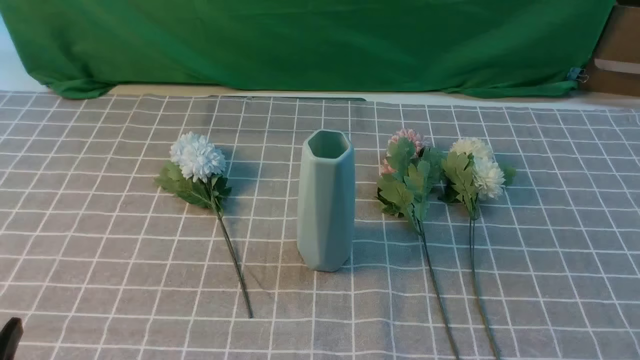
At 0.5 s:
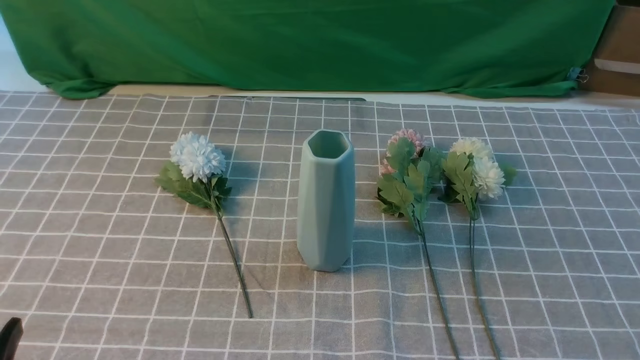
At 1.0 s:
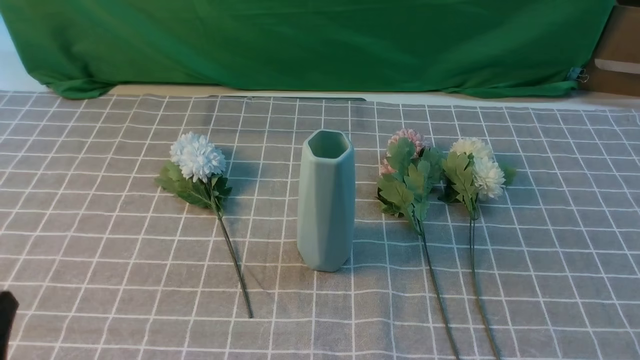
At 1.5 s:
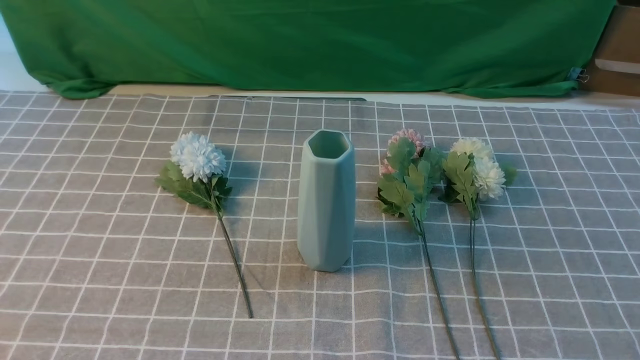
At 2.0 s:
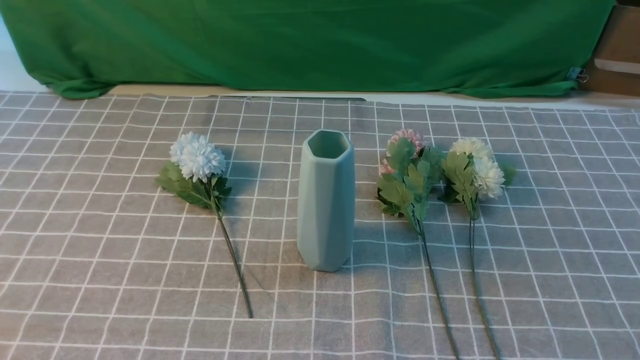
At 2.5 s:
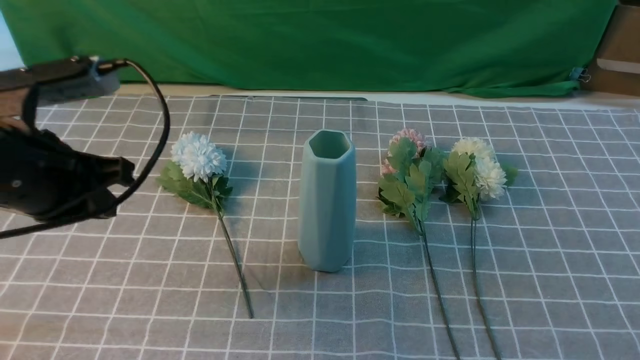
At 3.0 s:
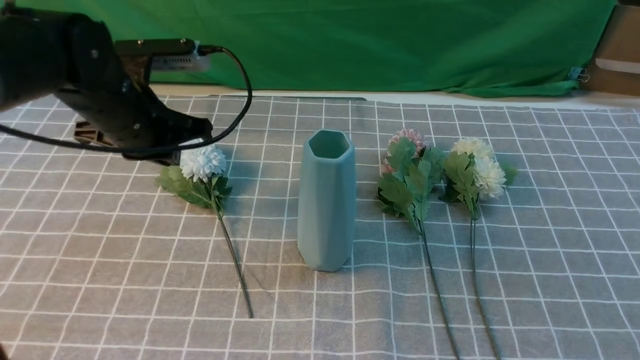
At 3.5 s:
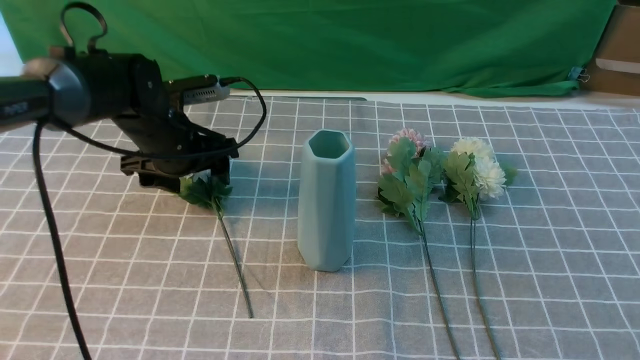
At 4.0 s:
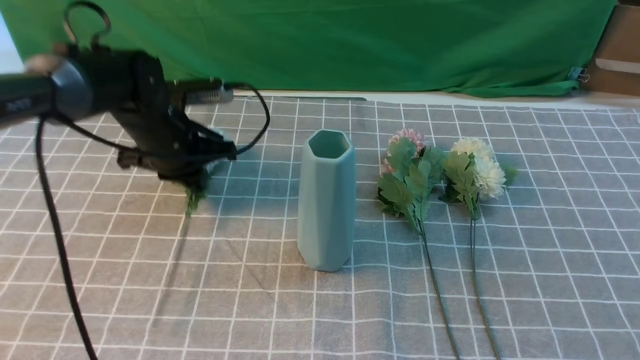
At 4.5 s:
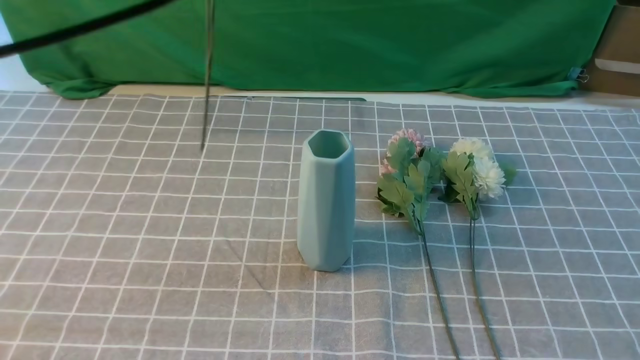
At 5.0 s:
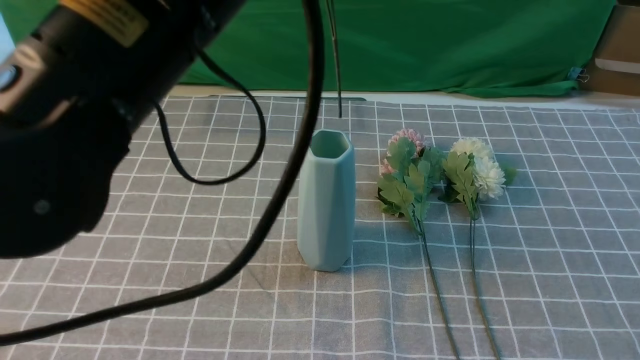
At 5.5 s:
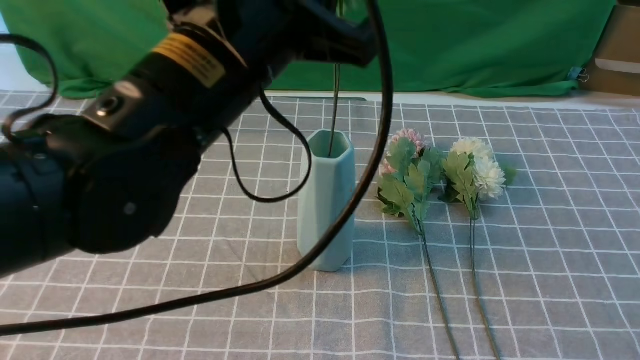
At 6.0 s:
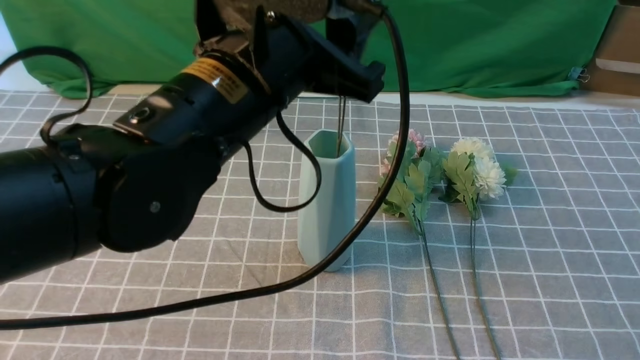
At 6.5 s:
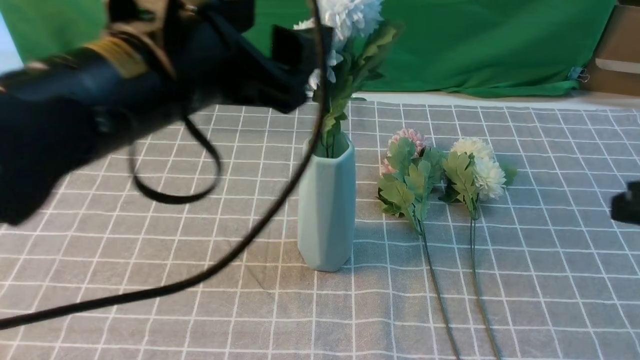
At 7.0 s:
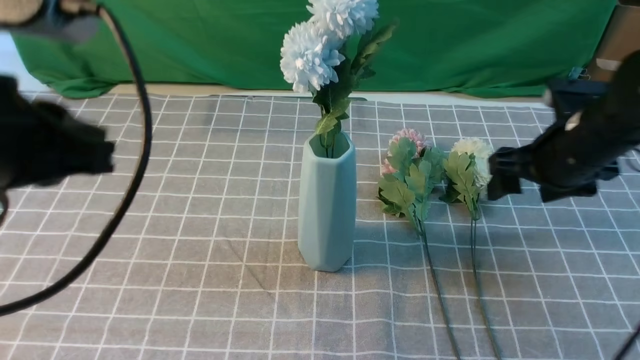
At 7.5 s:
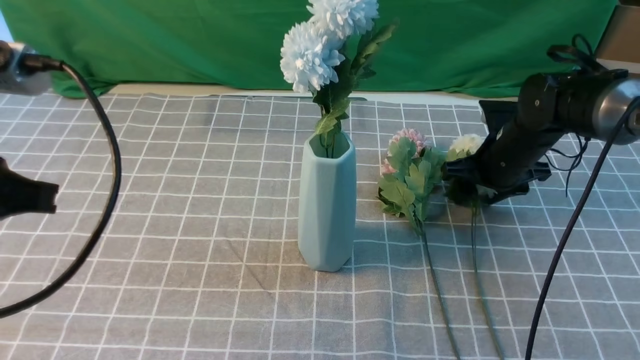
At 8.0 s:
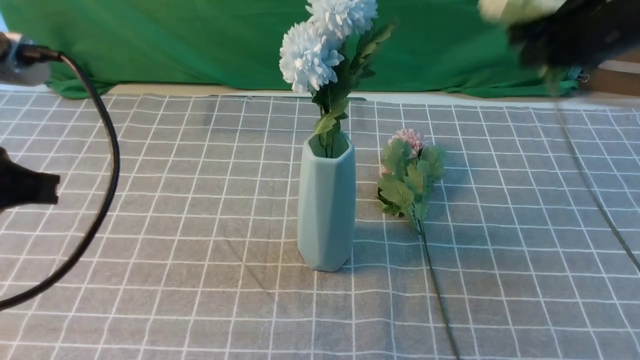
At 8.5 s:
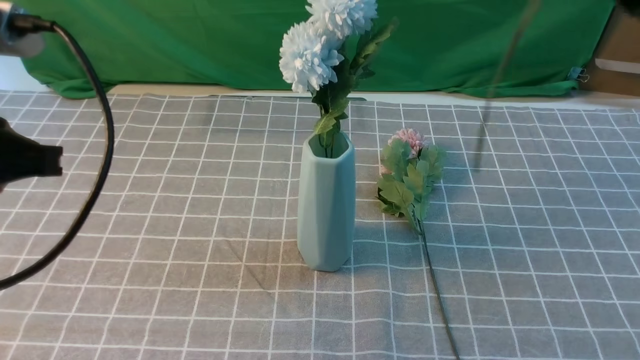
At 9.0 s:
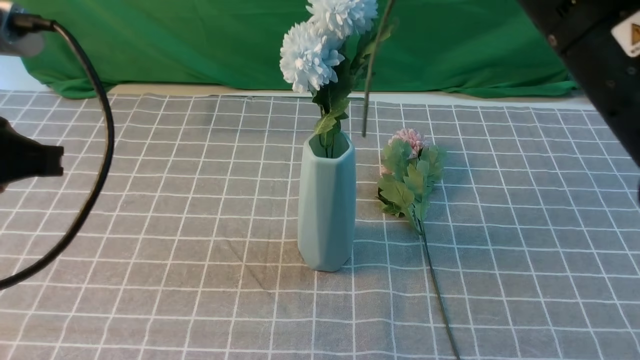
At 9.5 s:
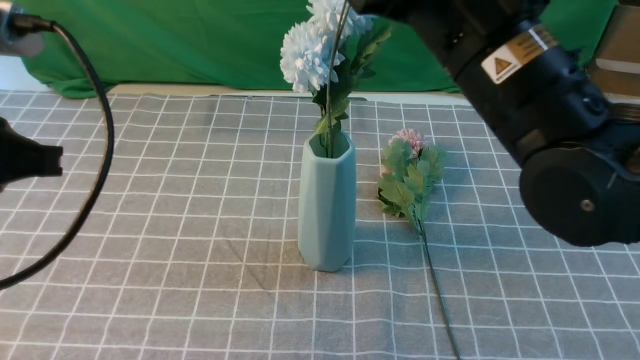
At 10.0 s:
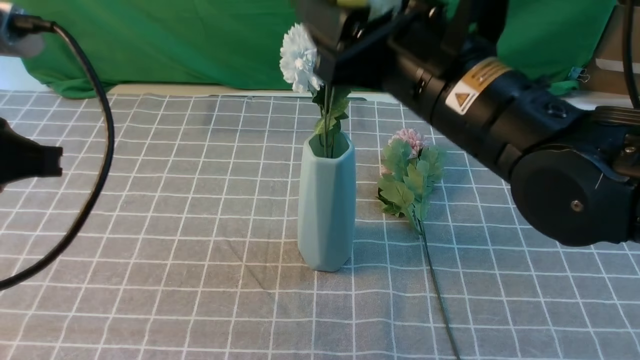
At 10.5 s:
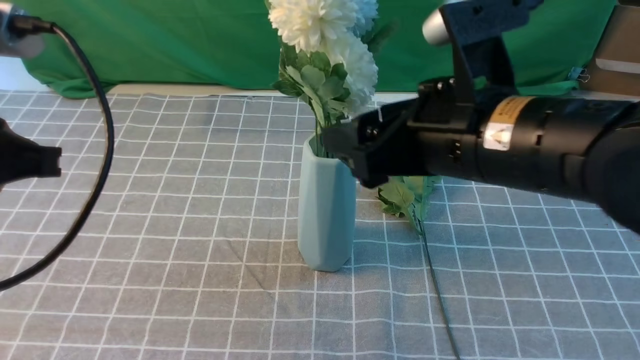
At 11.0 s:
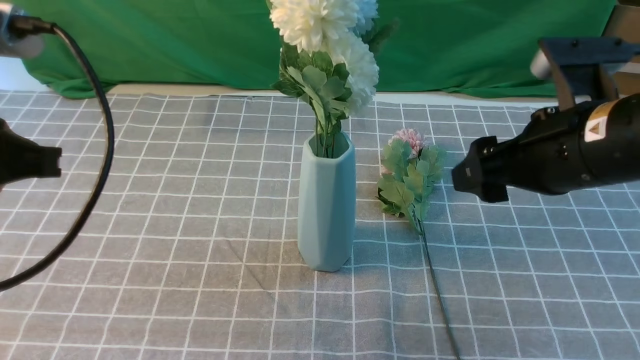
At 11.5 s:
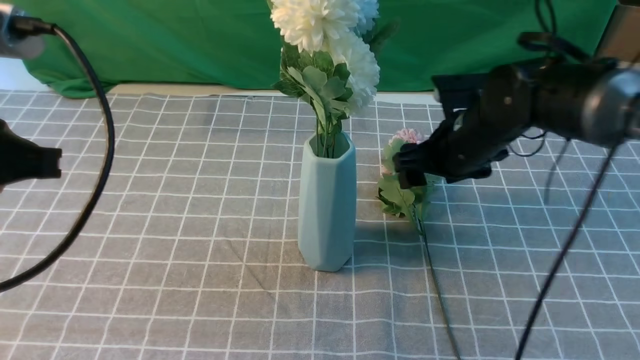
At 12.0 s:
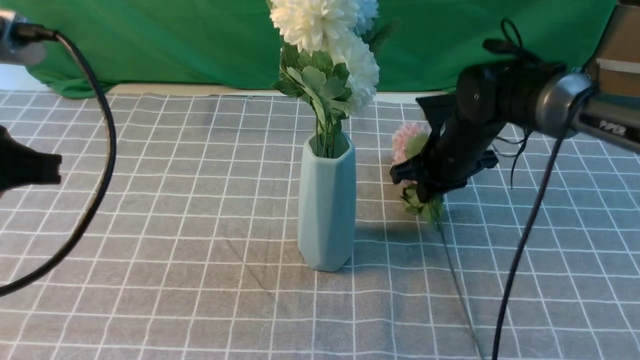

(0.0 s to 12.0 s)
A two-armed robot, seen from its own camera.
Task of the whole recording: insert the flowers into the vase on the table with the grey tablecloth.
Step, 0.0 s - 3.5 s: use the left arm to grab a bunch of fresh flowers.
Step, 4.0 s - 6.0 s: use the left arm to insert the flowers into the vase.
Step, 6.5 s - 7.5 s: use the right arm to grab a bunch of fresh flowers.
Step, 8.0 s - 10.5 s: use the right arm to insert the flowers into the vase.
Step, 11.0 s - 12.0 s: use the right arm to grab a bunch of fresh flowers.
2.0 s - 4.0 s: The left gripper goes roughly 35 cm forward and downward, and opens, then closes once more. Meanwhile the right gripper moves upward, approximately 10 cm.
4.0 s - 6.0 s: The left gripper heads backward, upward and to the right, covering some 25 cm, and opens up.
6.0 s - 8.0 s: The right gripper shifts roughly 25 cm forward, and opens, then closes again, while the left gripper is displaced to the left and backward by about 20 cm, and closes.
8.0 s - 10.0 s: The right gripper moves to the left and backward, some 15 cm, and opens up.
10.0 s - 12.0 s: The right gripper travels forward, downward and to the right by approximately 20 cm, and closes up.

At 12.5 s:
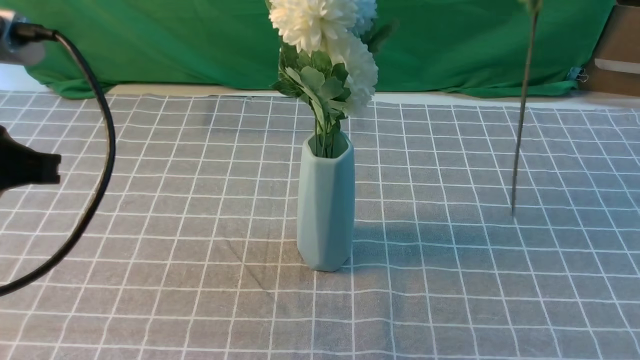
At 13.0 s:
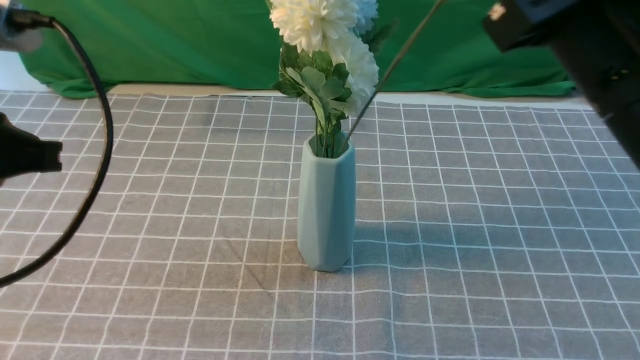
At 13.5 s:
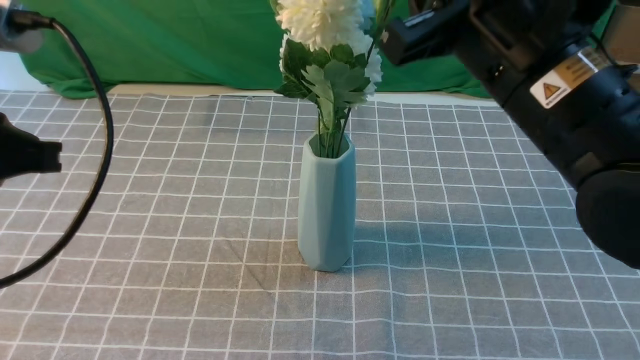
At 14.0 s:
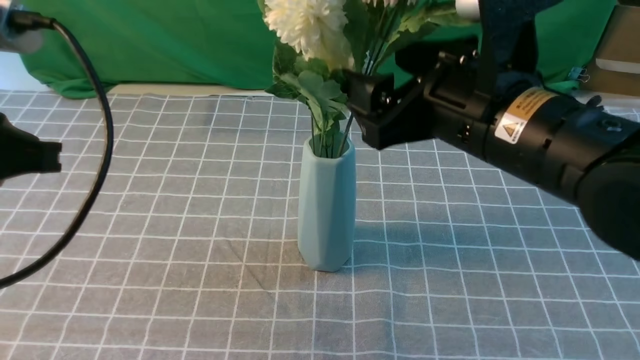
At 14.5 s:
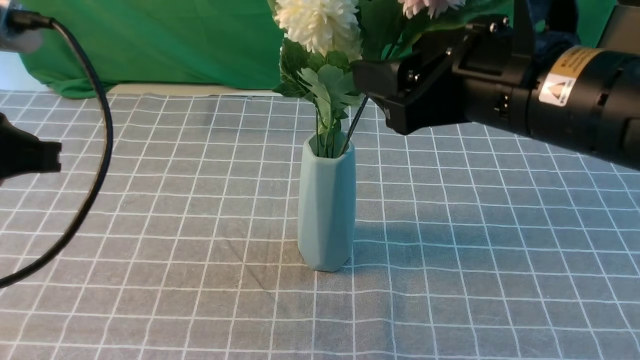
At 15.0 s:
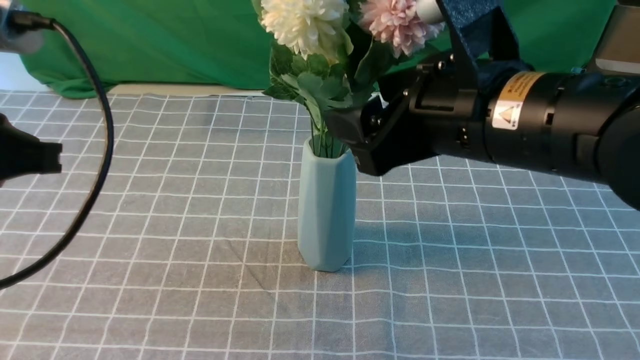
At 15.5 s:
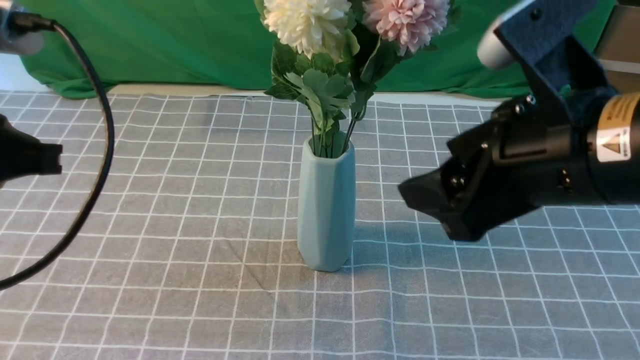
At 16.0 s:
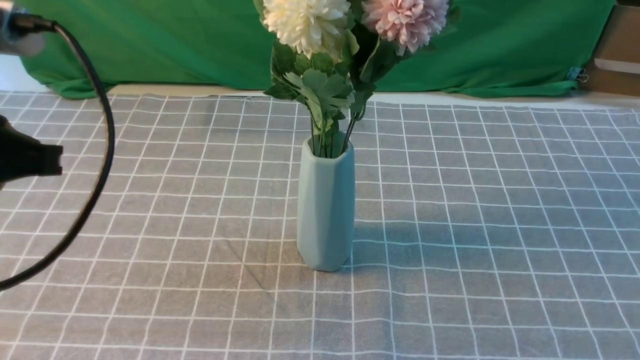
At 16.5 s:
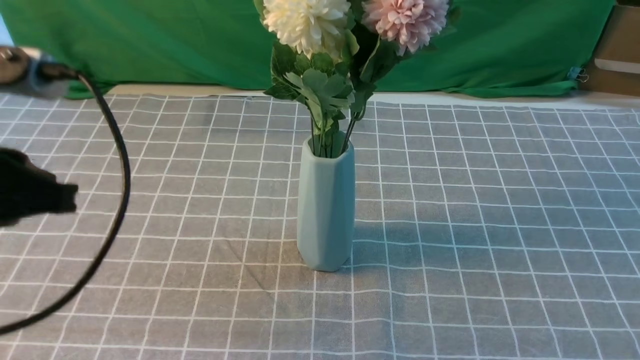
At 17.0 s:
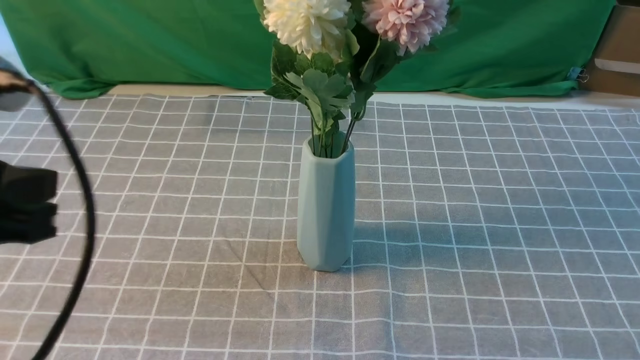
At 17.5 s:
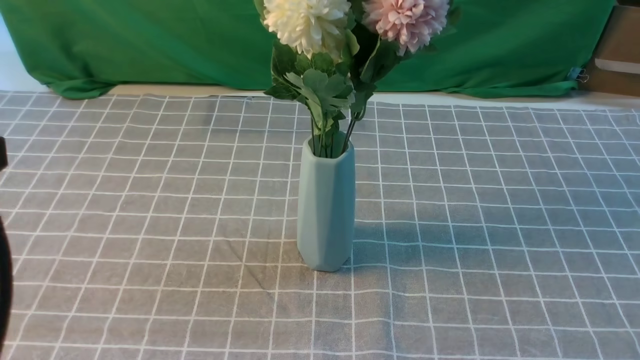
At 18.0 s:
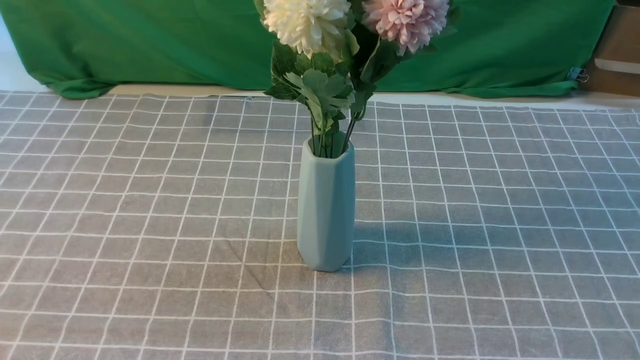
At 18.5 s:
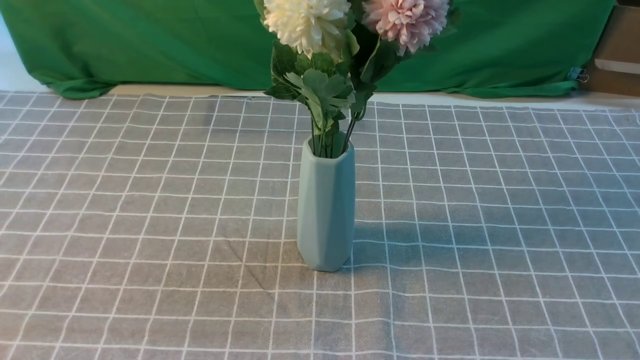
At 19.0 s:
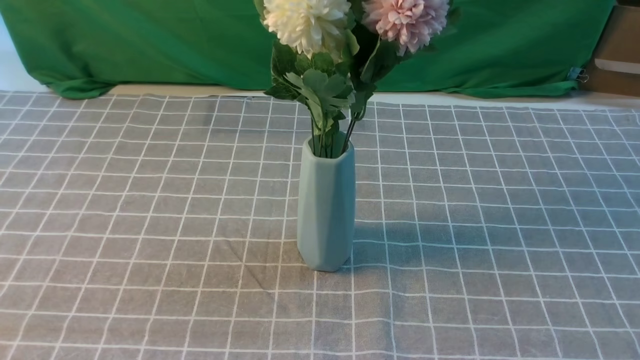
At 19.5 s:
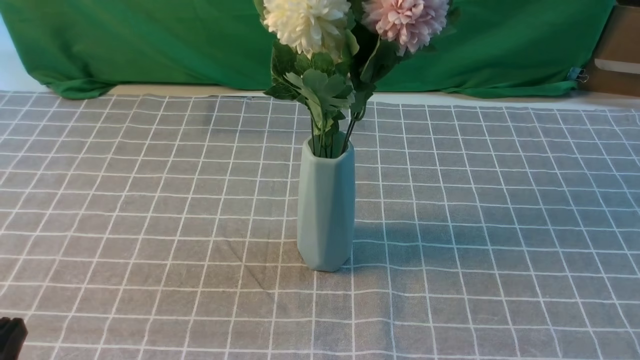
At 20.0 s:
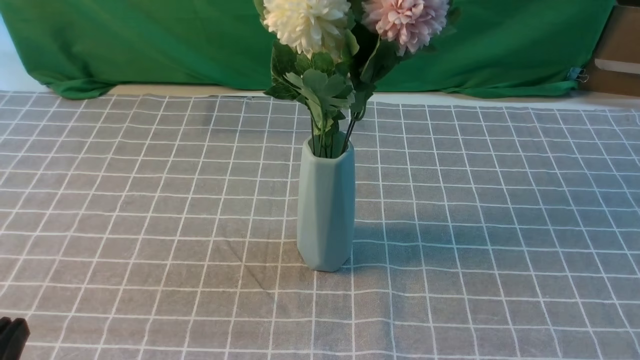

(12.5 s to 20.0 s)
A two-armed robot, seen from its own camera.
Task of the whole recording: insert the flowers into the vase on the table with the grey tablecloth.
Step, 12.5 s - 15.0 s: use the right arm to insert the flowers into the vase.
12.5 s - 14.5 s: The right gripper shifts roughly 10 cm downward and to the left, and opens up.
14.5 s - 16.5 s: The right gripper travels backward and to the right by about 30 cm, and closes its fingers.
16.5 s - 18.0 s: The left gripper heads backward and upward, covering roughly 15 cm.
